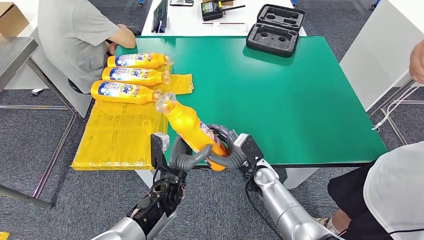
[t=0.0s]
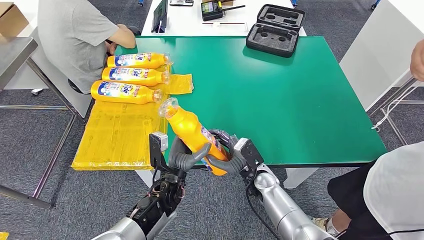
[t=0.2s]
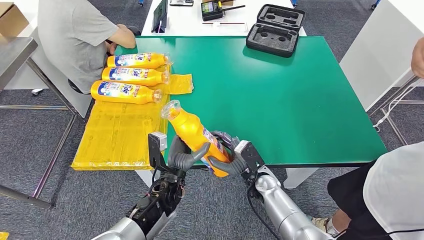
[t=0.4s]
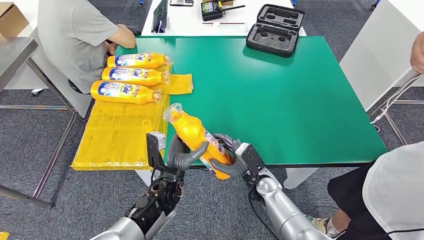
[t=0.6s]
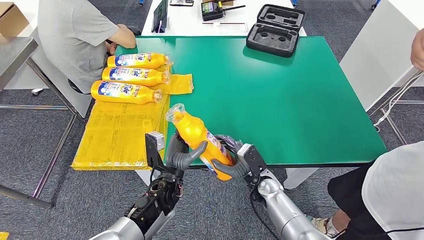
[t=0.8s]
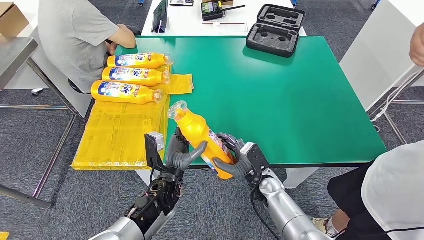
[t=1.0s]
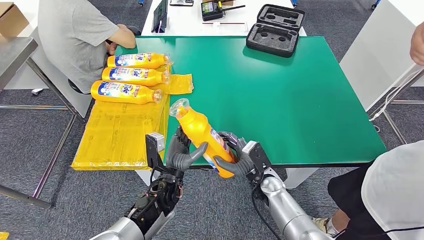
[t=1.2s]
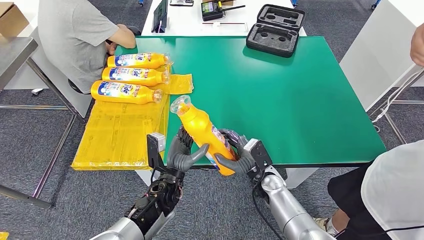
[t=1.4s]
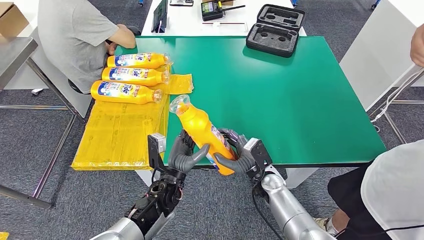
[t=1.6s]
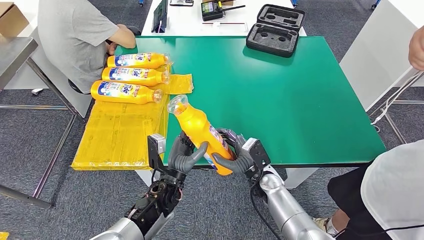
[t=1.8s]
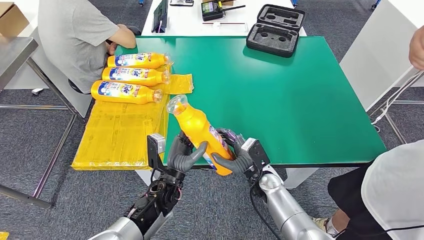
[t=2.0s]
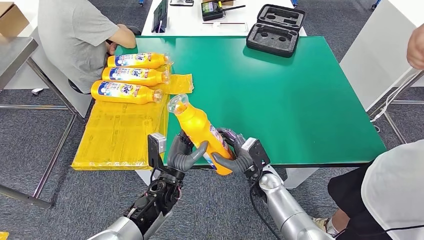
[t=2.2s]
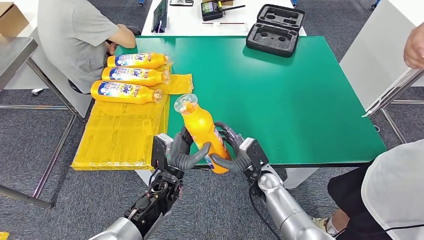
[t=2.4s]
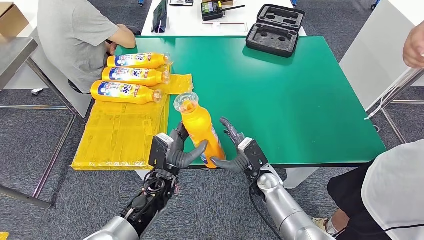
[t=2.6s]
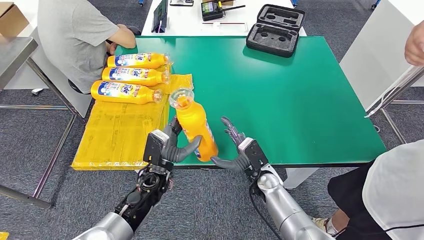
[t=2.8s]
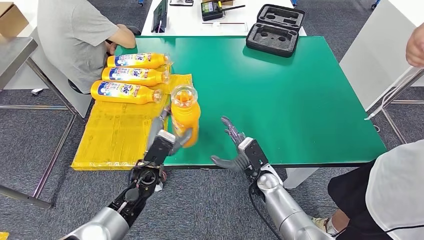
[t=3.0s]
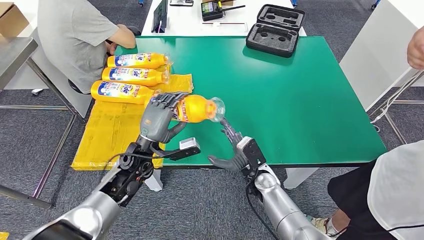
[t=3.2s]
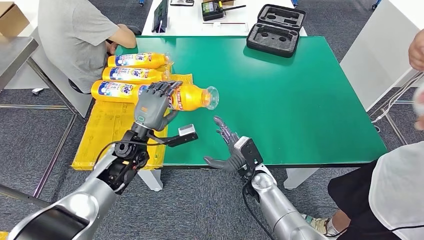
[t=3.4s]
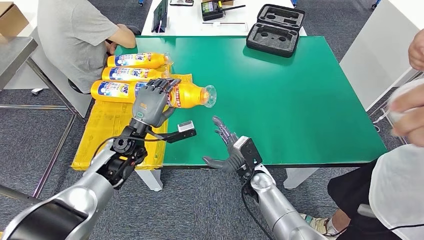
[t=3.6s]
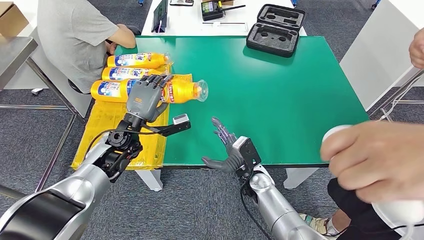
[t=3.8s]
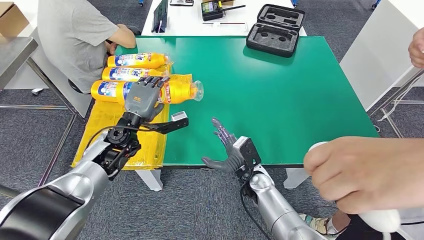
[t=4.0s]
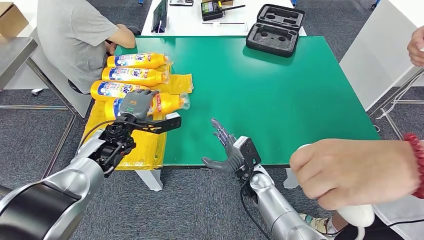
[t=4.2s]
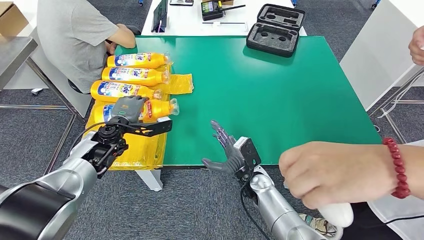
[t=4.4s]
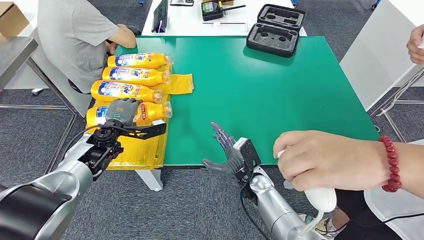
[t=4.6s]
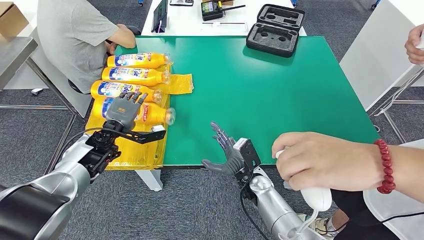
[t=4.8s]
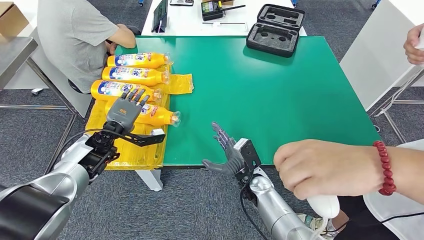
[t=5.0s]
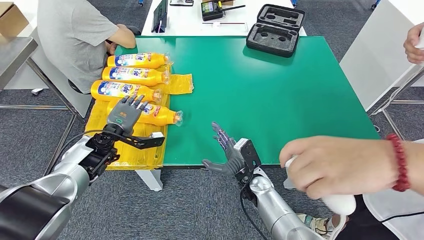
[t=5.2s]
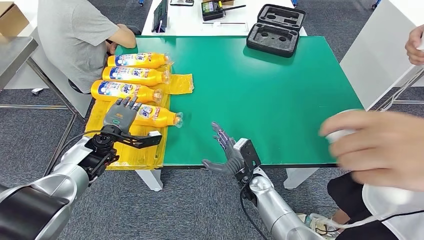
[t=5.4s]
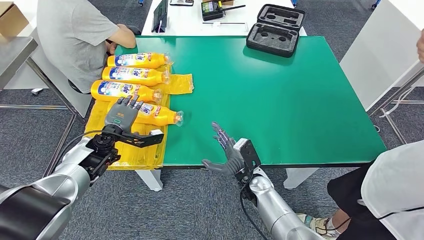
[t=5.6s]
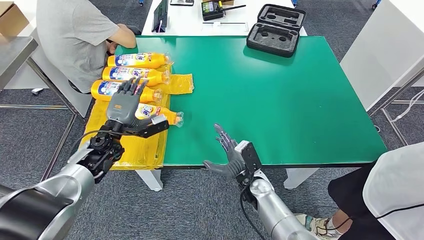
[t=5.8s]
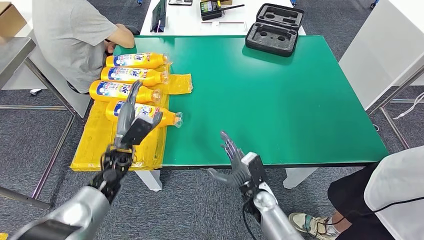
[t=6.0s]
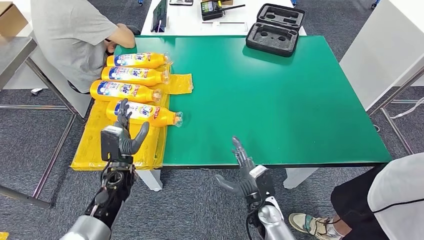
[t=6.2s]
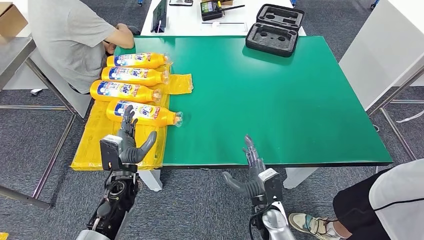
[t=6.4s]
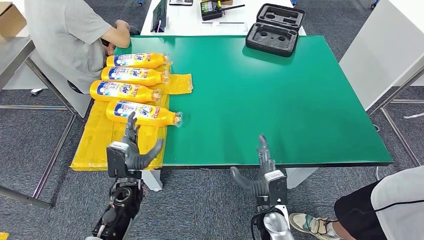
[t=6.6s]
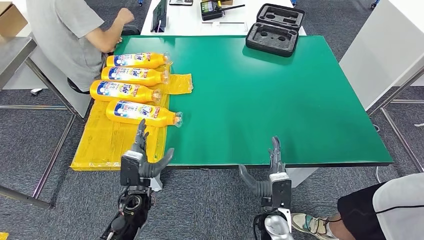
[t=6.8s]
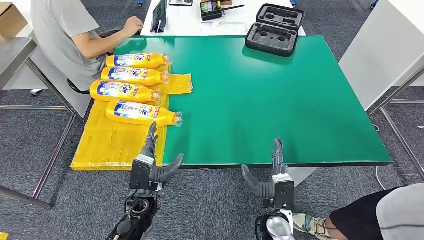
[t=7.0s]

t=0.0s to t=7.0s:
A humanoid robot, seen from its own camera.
Step, t=0.0s to t=6.8s: Flip the fast-moving consumer goods bottle to the front side.
t=0.0s to t=1.4s: The hands make only small movements.
t=4.2s to t=5.6s: The left hand goes roughly 5 cm to the left.
